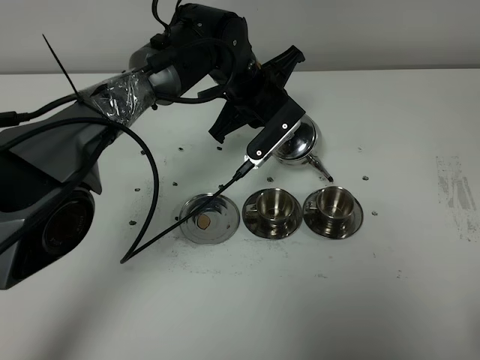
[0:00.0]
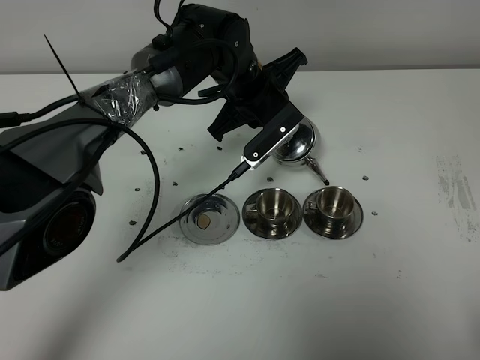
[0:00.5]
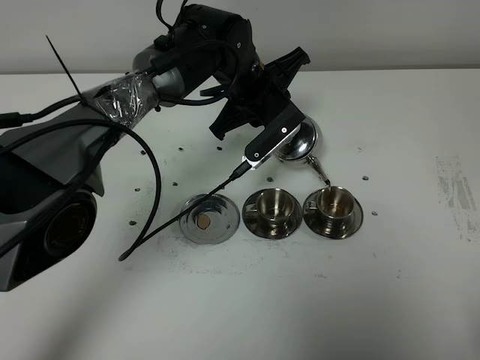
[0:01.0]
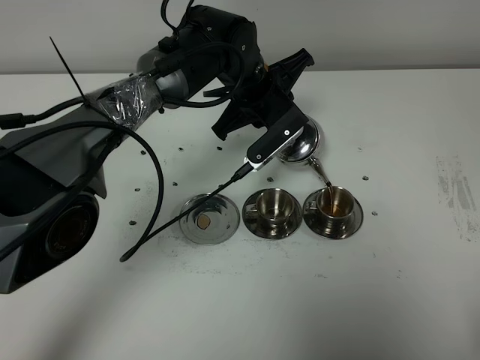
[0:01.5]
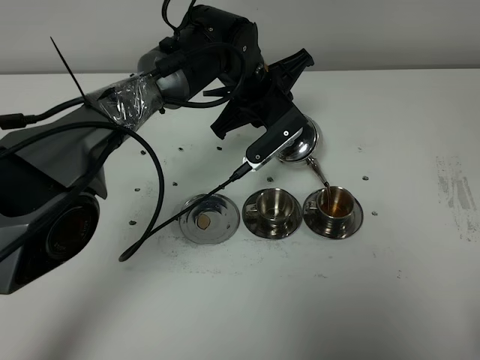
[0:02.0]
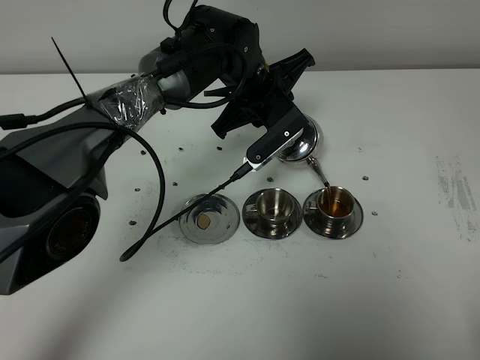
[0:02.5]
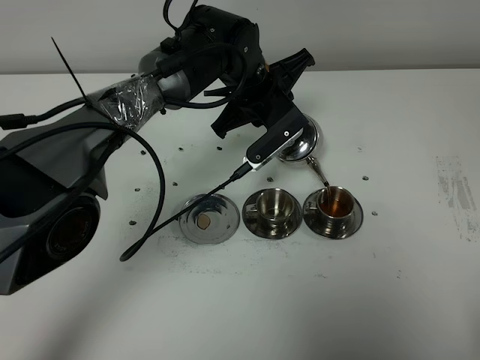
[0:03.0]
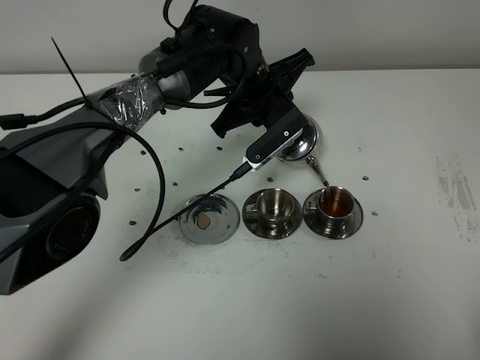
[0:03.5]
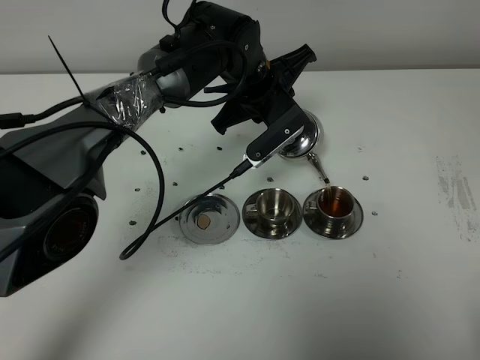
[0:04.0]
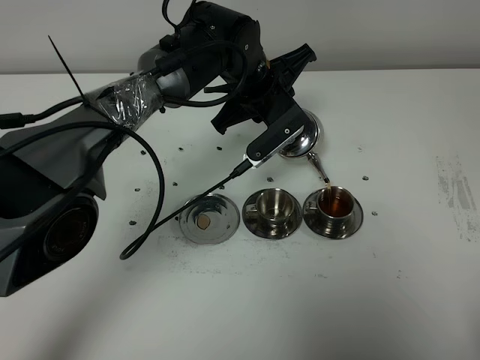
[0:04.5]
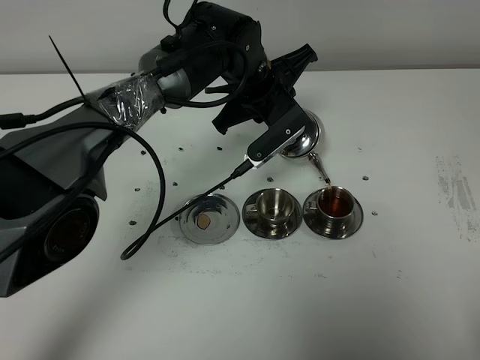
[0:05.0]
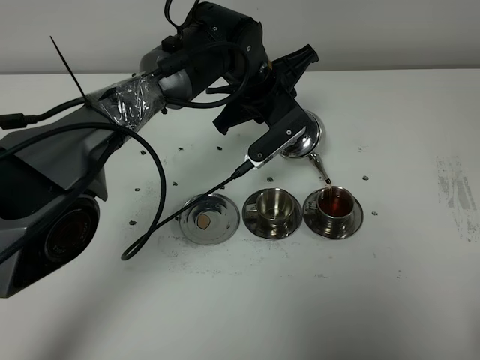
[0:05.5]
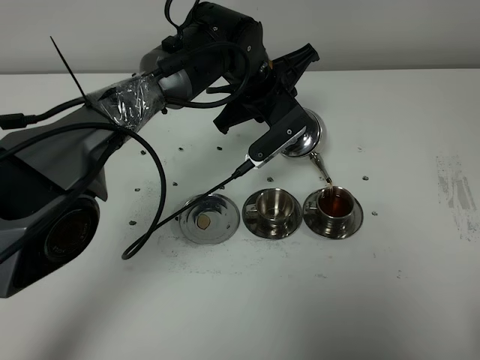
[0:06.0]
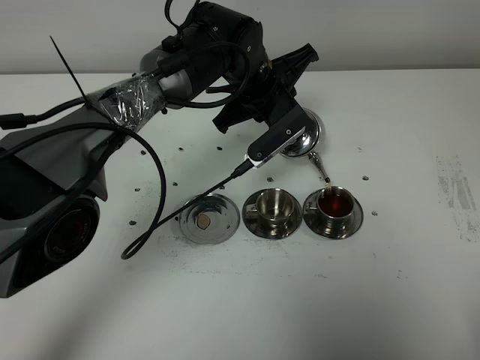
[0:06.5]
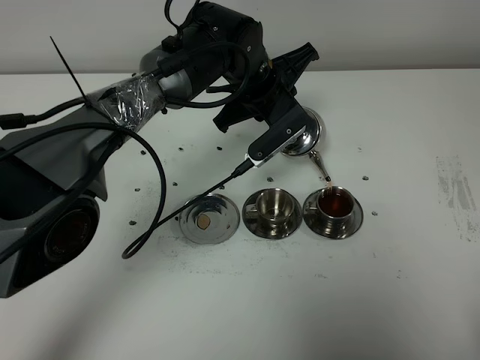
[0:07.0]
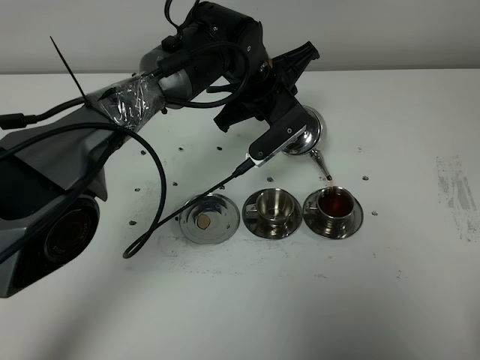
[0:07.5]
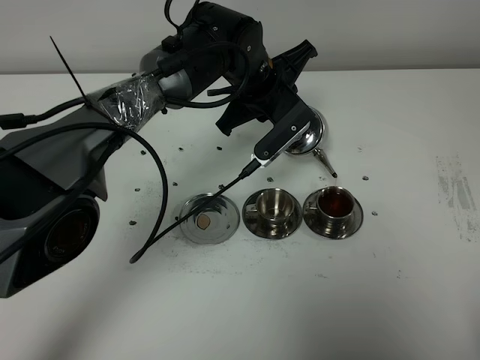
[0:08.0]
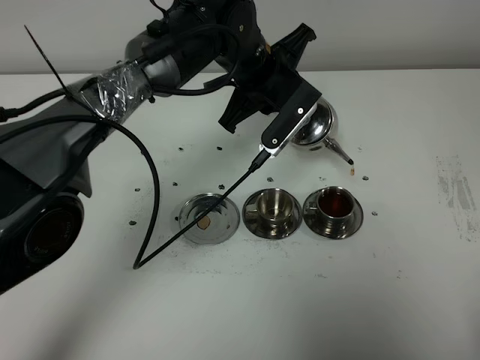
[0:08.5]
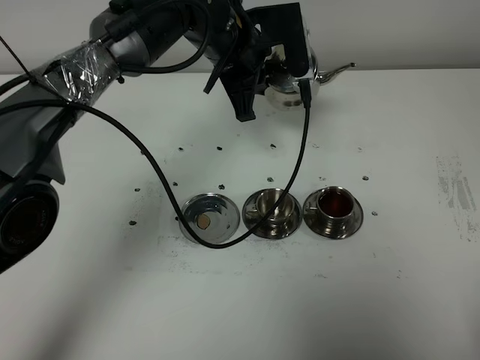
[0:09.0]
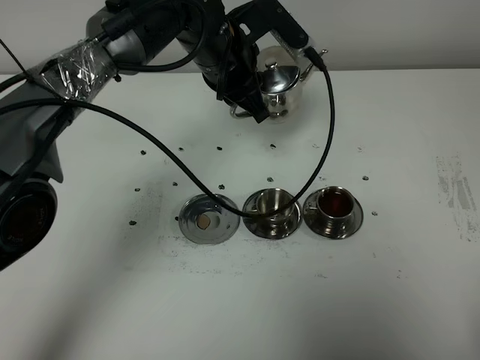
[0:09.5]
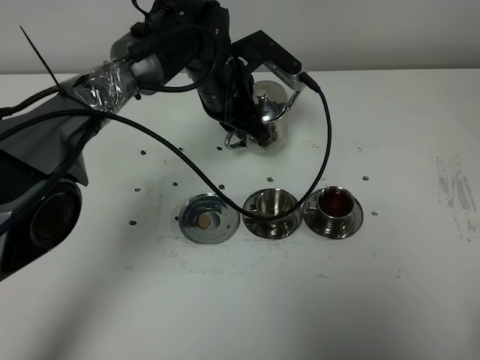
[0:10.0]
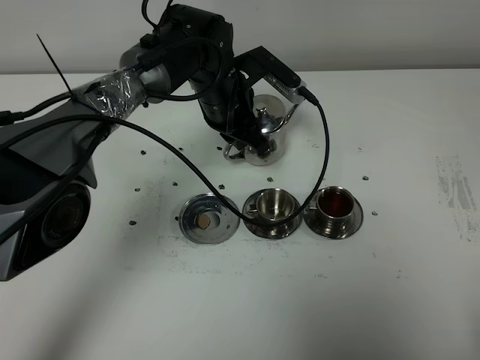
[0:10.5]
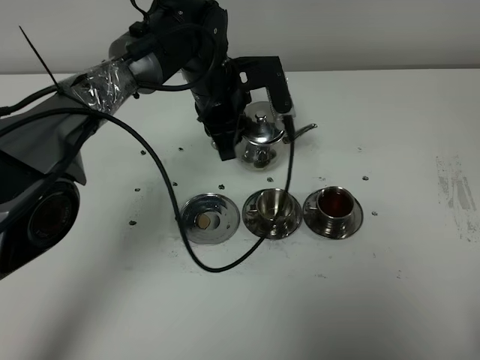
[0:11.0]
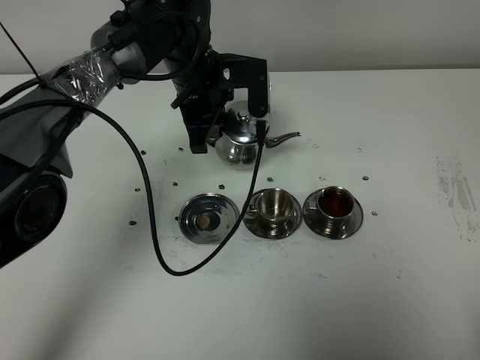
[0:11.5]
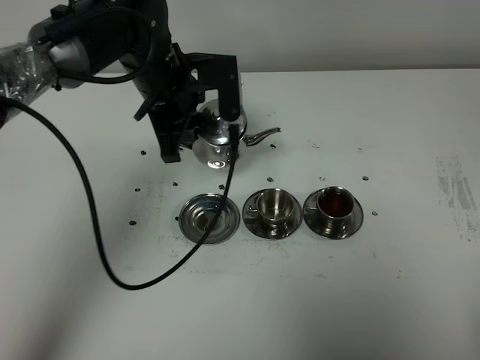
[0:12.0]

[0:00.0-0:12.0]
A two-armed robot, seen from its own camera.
Task of the whole recording: grasp the stainless steel teapot and pour the tea into the two stainless steel teacups one by one, put the stainless steel teapot back in its original place.
0:00.0 to 0:02.0: The grippers make only small movements.
0:02.0 to 0:08.0: Neither gripper changes place.
0:10.0 to 0:12.0: The left gripper shifts some 5 cm to the left.

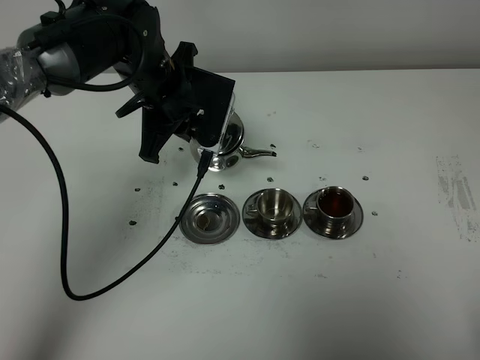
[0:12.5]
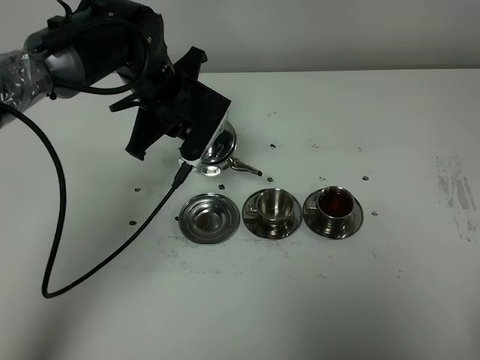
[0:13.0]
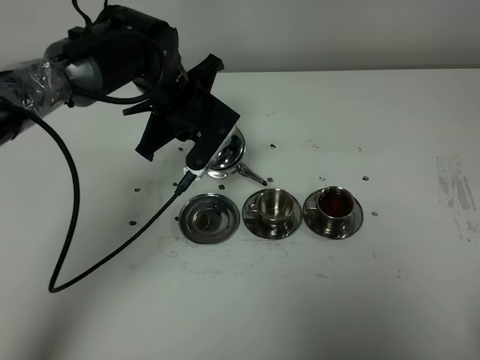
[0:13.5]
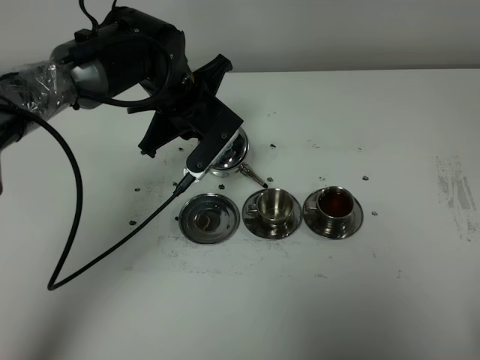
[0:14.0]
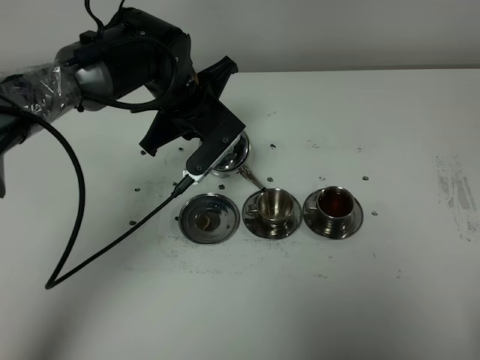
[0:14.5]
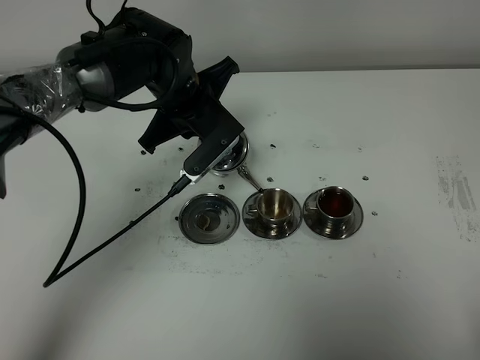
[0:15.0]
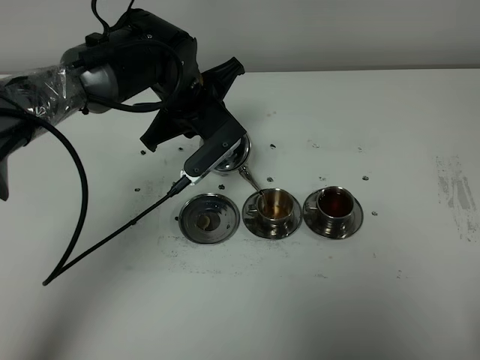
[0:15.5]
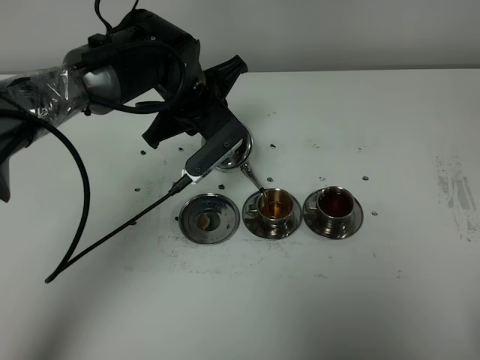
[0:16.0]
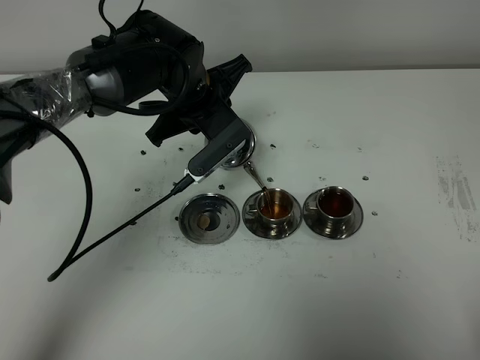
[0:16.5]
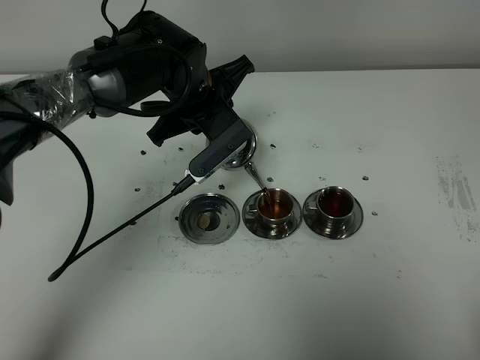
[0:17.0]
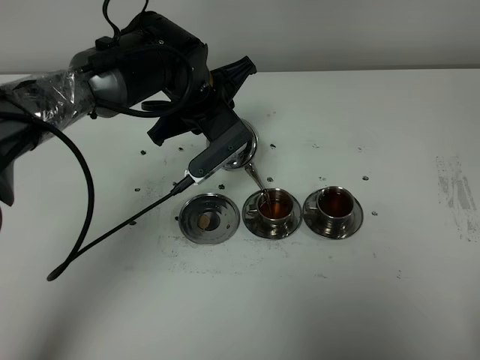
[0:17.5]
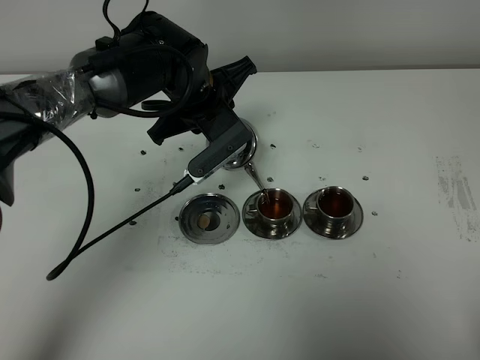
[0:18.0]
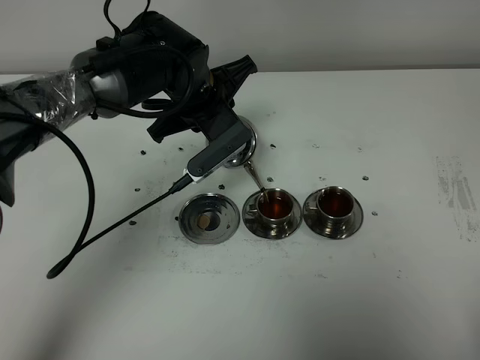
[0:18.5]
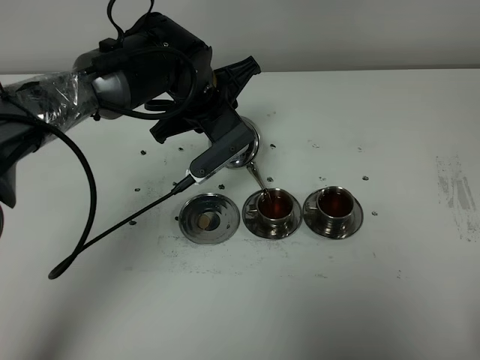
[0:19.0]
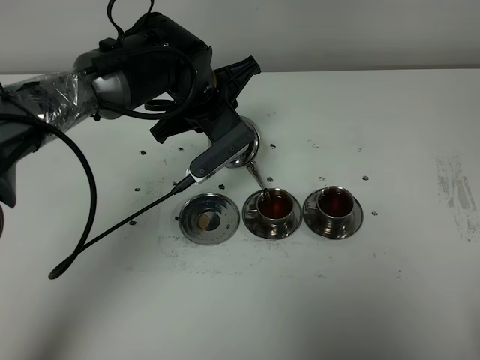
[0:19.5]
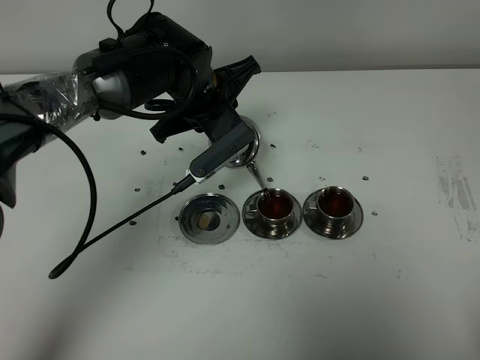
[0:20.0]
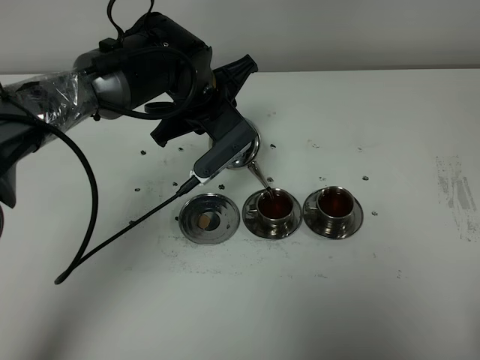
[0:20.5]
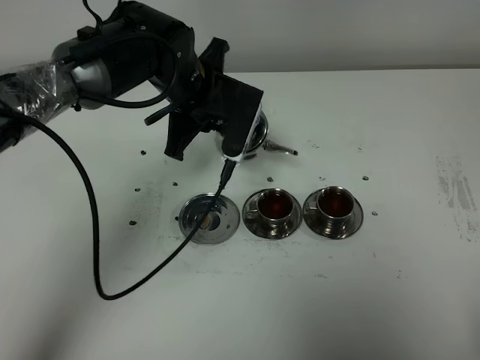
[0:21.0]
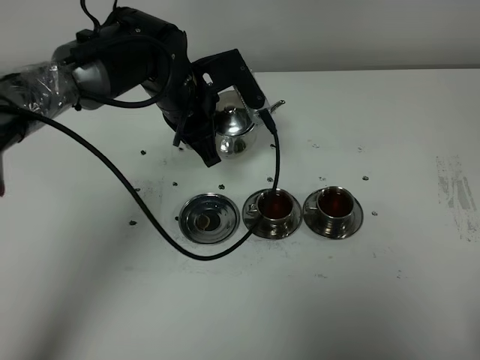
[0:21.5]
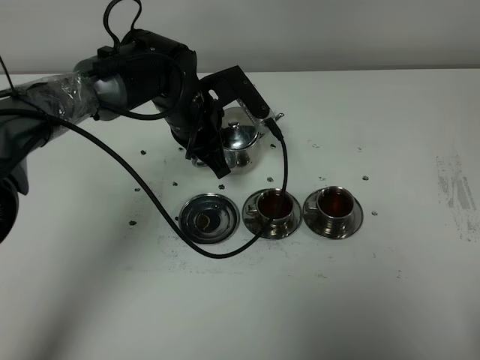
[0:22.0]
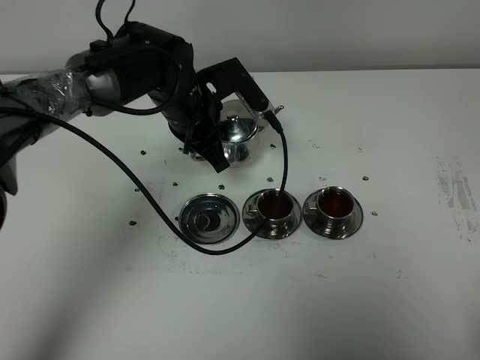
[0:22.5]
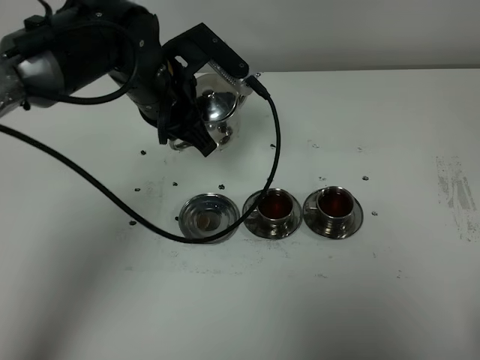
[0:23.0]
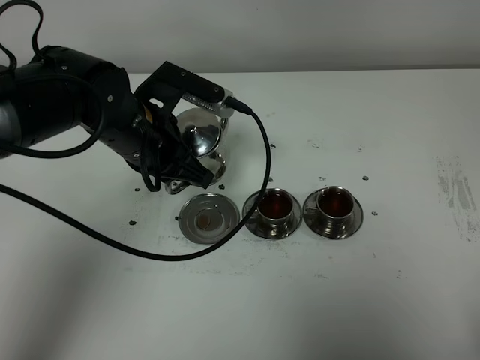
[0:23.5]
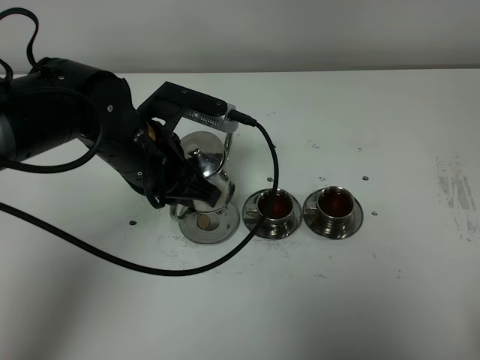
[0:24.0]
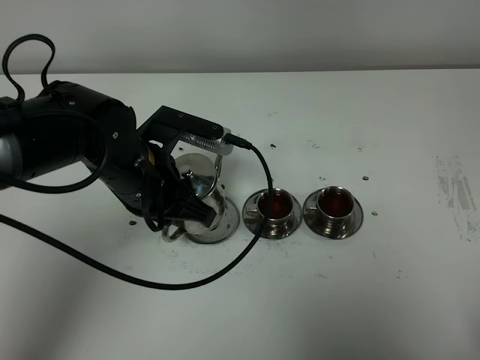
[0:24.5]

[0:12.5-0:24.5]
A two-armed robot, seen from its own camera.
Task of the whole recording: grasp the stainless steel teapot and pour the tea into the two stainless steel teacups one by one, put the stainless steel teapot back in its original place.
Step, 0:12.5 to 0:20.5: Pour tea into the teacup with the left gripper.
0:14.5 to 0:16.5: There are only small adjustments of the grippers.
0:16.5 to 0:20.5: Both grippers stay about where they are.
0:22.5 to 0:24.5: The left gripper goes about 10 cm backward.

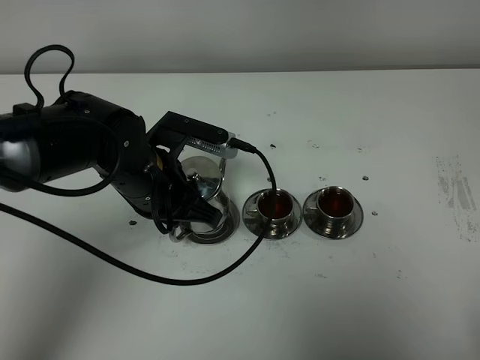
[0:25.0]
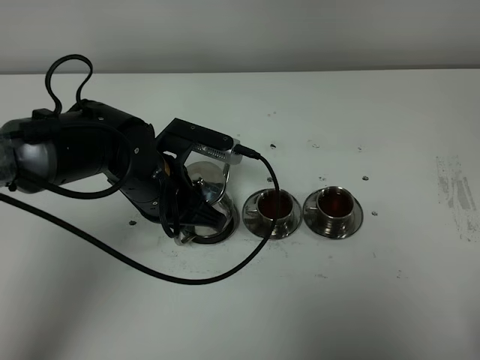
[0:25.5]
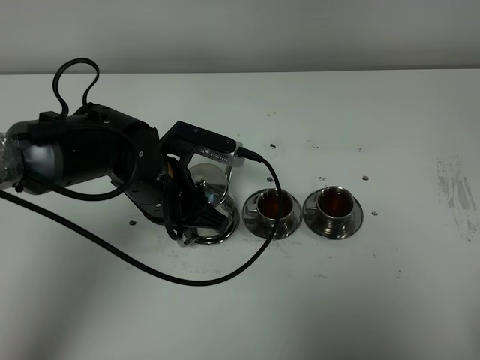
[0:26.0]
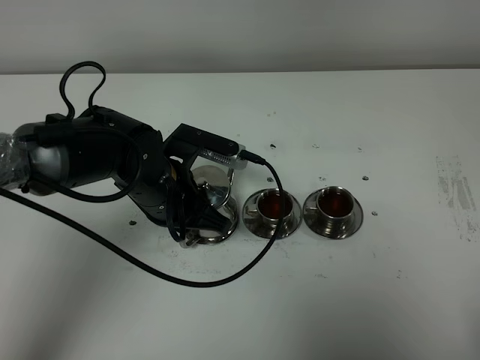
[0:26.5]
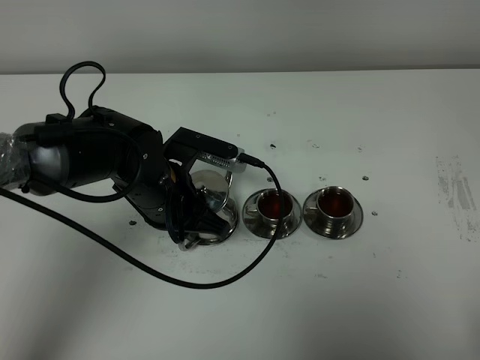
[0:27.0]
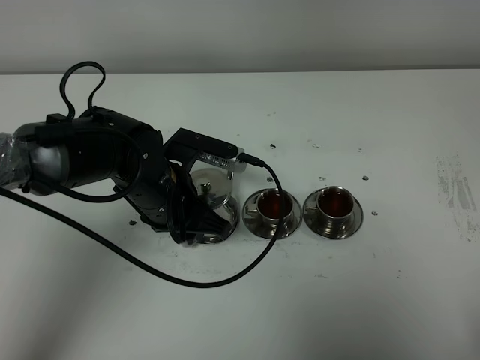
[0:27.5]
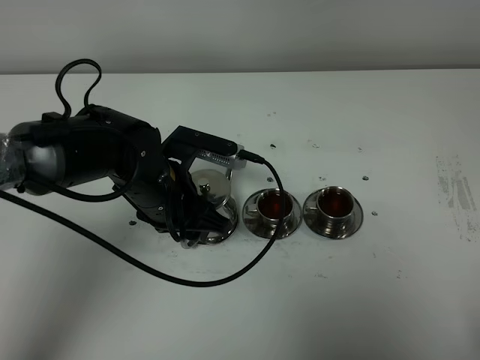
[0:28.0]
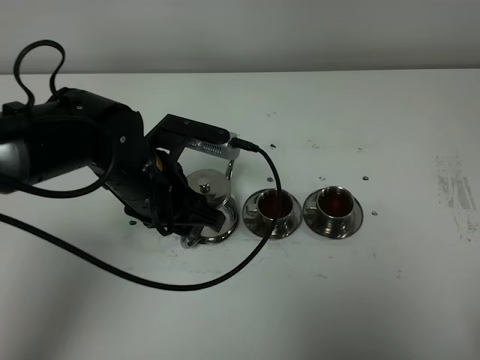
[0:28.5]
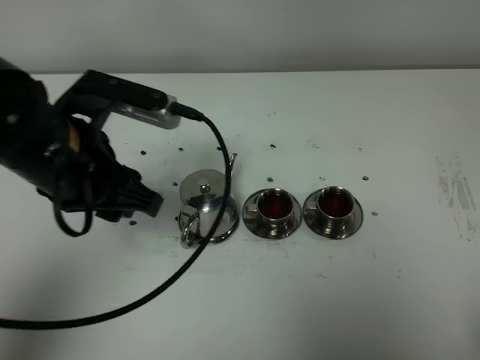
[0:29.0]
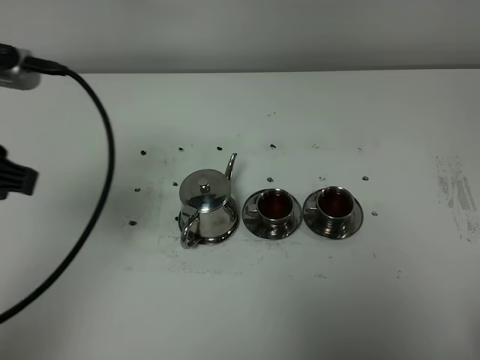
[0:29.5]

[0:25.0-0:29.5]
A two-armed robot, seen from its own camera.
Task of the whole recording: grasp the stainless steel teapot and pour the tea into the two stainless steel teacups one by one, put the stainless steel teapot back in its original place.
0:25.0 to 0:27.0: There are only small adjustments of the grippers.
0:27.0 to 0:29.5: The left gripper shifts approximately 25 cm upward, to the left and backward, and opens up.
